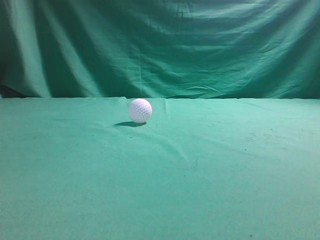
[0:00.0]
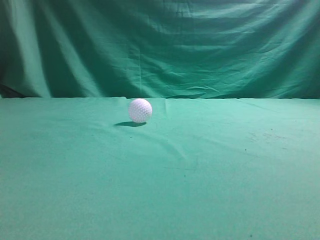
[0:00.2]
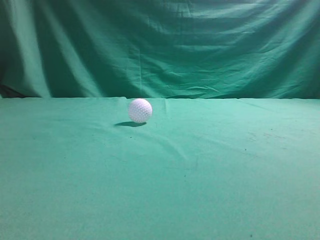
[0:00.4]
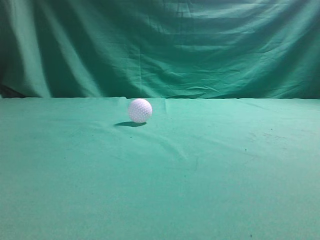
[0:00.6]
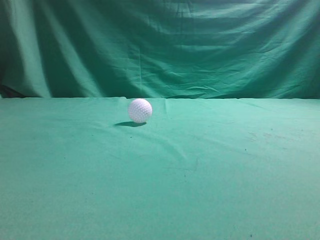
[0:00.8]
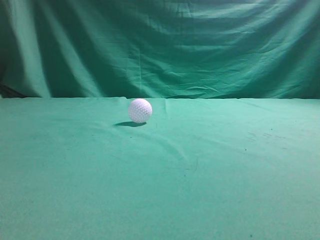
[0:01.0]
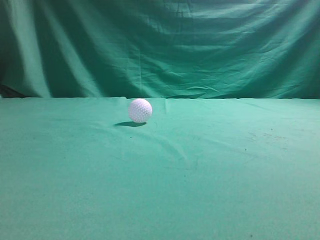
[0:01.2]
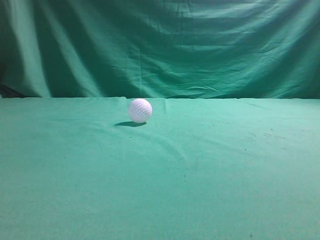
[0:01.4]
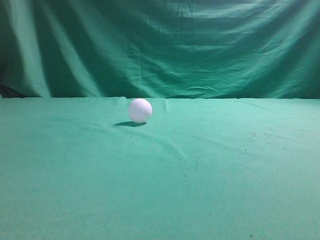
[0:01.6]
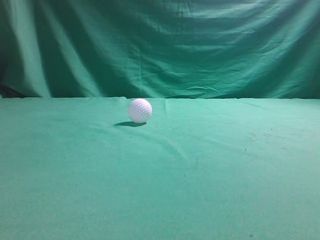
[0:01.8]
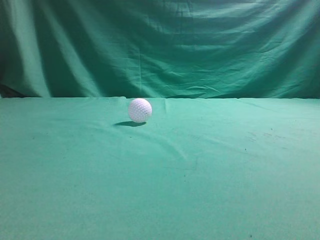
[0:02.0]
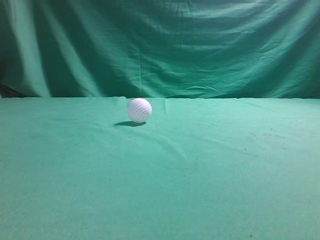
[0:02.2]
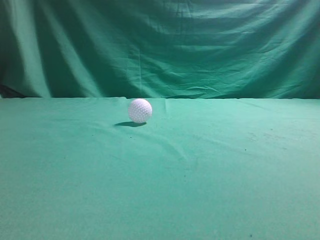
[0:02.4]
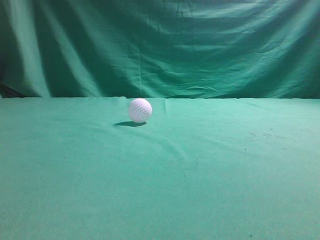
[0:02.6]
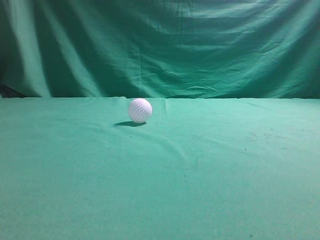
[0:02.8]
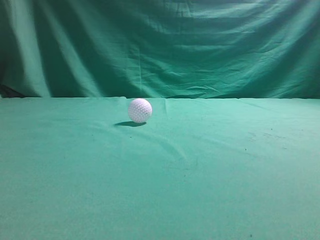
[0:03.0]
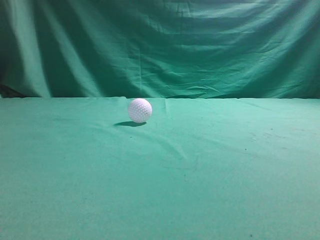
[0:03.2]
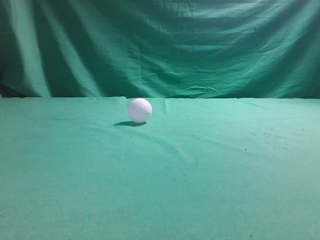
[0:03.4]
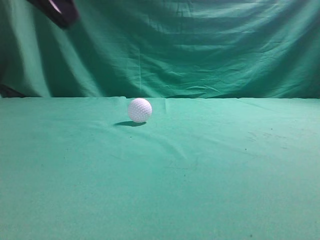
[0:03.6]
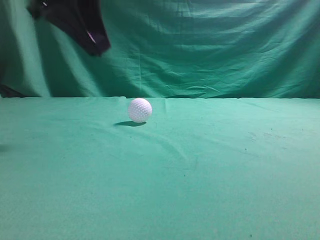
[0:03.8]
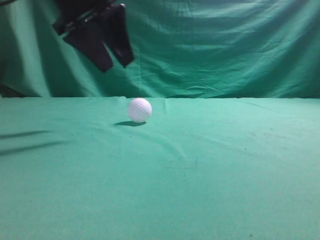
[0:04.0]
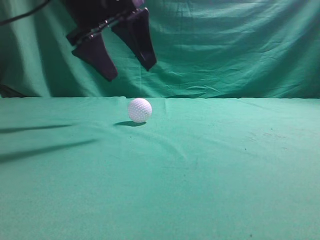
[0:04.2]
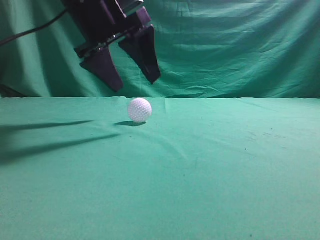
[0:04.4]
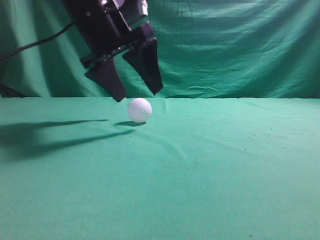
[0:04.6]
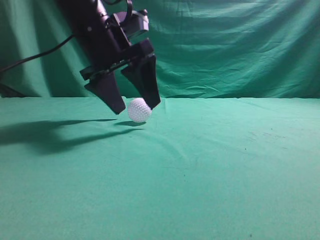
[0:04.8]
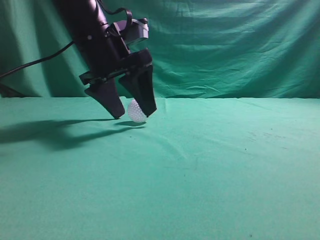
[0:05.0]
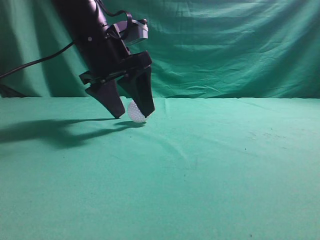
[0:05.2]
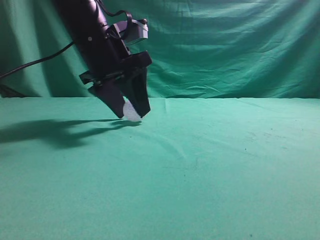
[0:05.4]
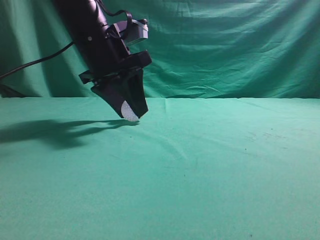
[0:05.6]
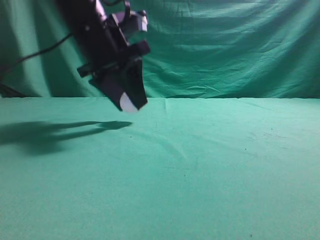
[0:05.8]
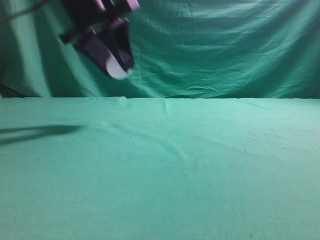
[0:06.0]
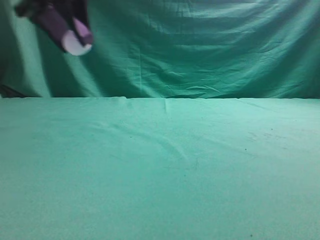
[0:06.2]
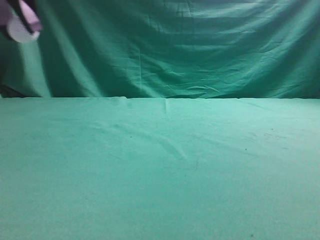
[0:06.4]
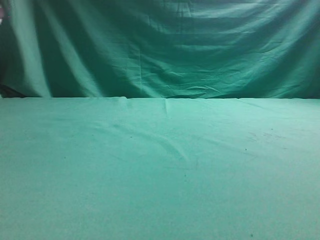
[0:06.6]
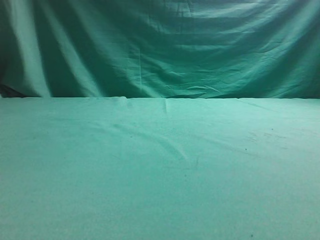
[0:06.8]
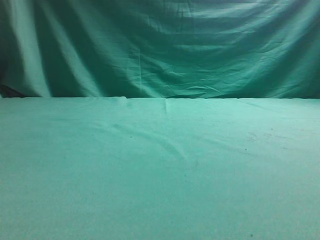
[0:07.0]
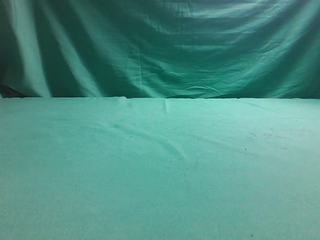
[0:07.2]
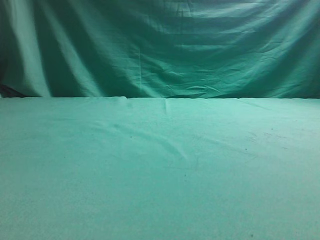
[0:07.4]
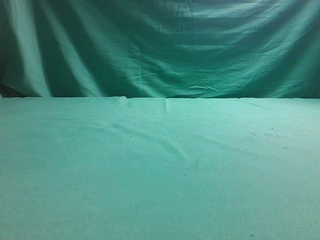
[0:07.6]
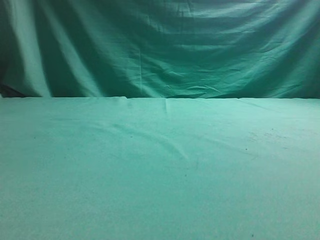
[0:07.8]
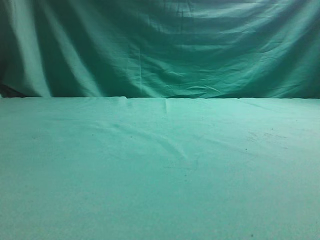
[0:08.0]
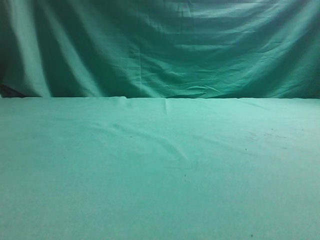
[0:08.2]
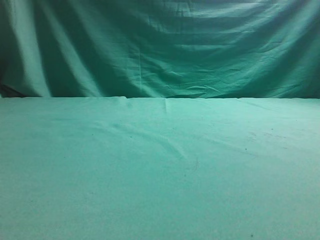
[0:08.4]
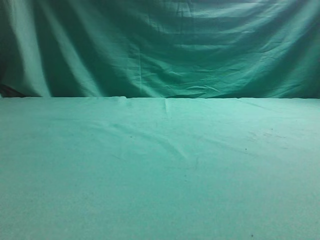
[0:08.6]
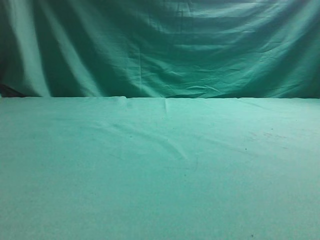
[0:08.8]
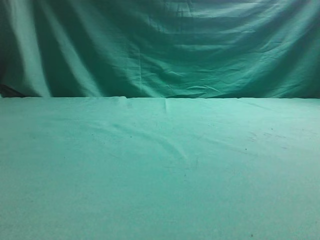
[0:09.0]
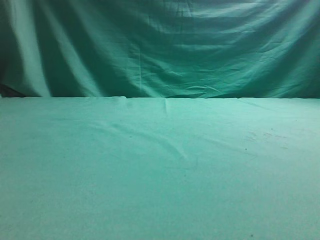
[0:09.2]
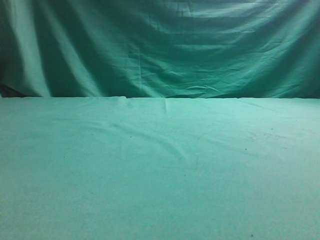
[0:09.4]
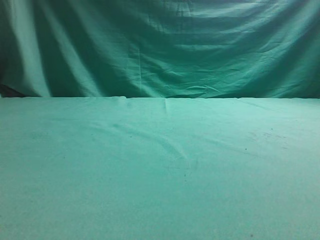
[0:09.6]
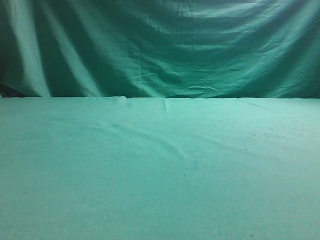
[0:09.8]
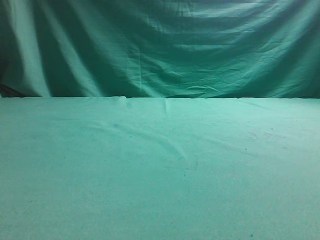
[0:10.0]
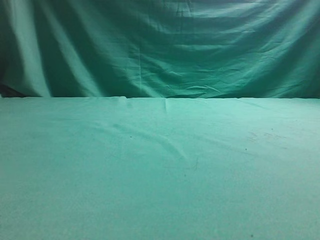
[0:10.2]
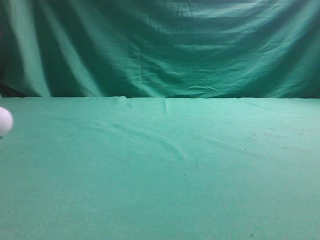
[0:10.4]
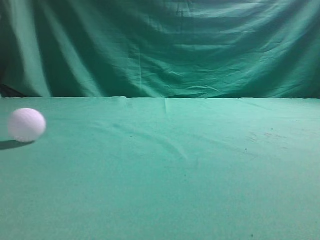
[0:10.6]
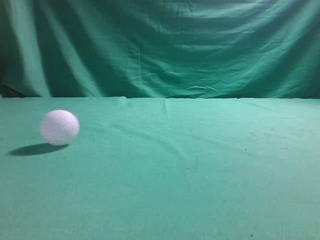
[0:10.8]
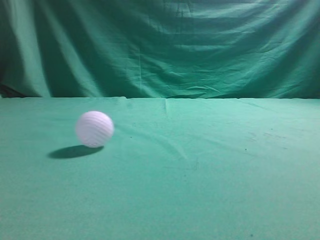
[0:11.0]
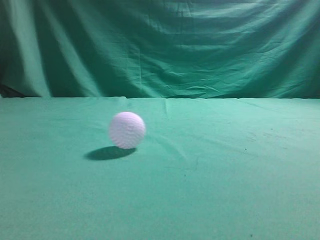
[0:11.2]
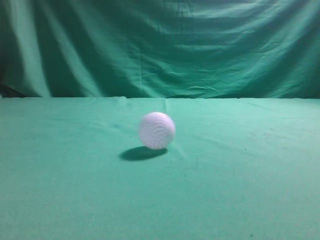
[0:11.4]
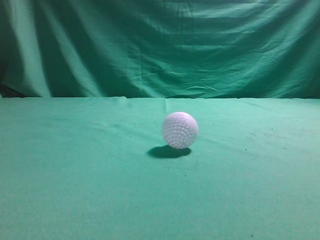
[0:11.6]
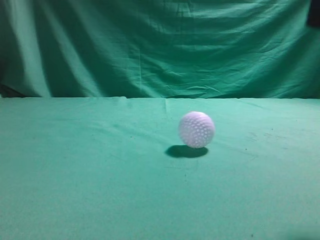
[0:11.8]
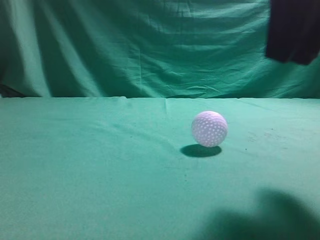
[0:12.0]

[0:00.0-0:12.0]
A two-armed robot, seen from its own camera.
Task of the whole recording: pick up the ball and place it on the plate, then pick up the ball from the plate and put it in the center of the table.
Step, 0:00.0 to 0:06.0: Grab the spherical object with your left arm.
Step, 0:06.2 to 0:09.2: Place the sphere on the white object.
0:03.0 to 0:04.4: The left gripper shifts approximately 30 cm forward and to the right, and opens.
0:04.4 to 0:06.0: The left gripper closes.
0:06.0 to 0:07.6: The left gripper heads to the left, covering some 20 cm.
0:10.4 to 0:12.0: The right gripper is displaced to the left by about 10 cm, and opens up. The left gripper goes roughly 25 cm backward, and closes its fingers.

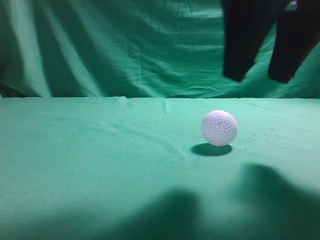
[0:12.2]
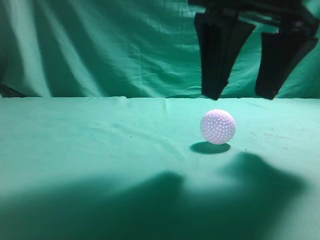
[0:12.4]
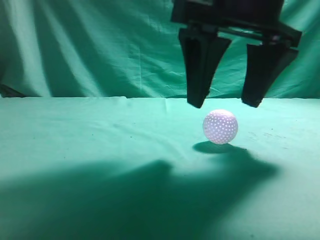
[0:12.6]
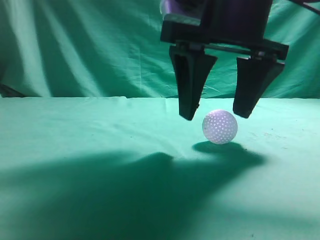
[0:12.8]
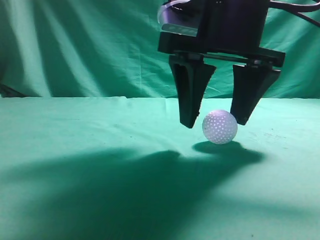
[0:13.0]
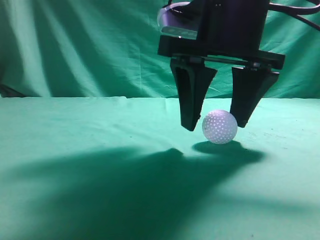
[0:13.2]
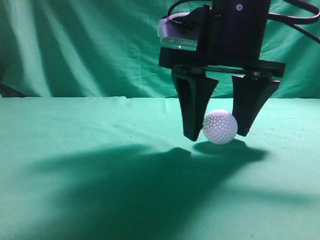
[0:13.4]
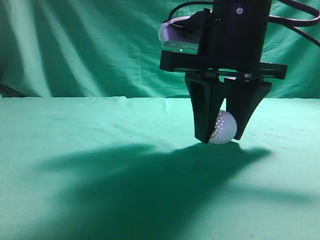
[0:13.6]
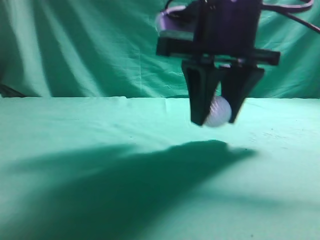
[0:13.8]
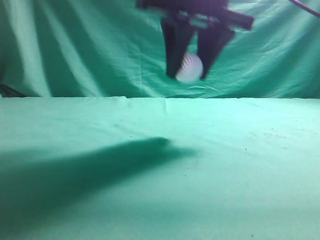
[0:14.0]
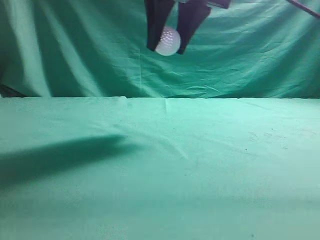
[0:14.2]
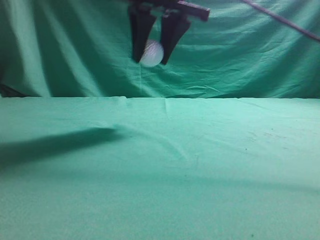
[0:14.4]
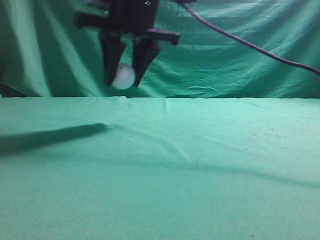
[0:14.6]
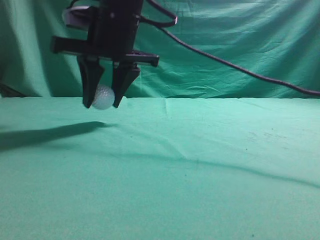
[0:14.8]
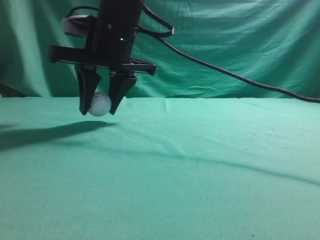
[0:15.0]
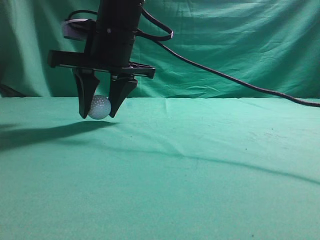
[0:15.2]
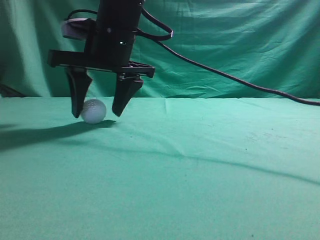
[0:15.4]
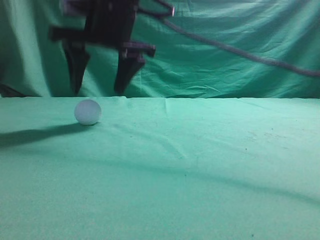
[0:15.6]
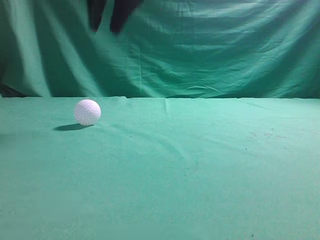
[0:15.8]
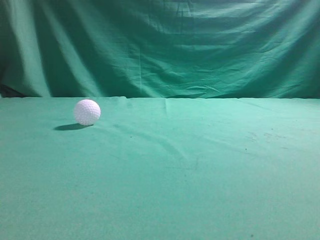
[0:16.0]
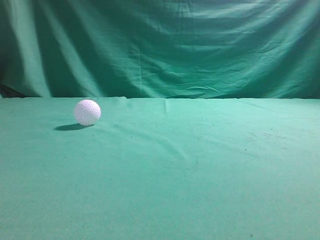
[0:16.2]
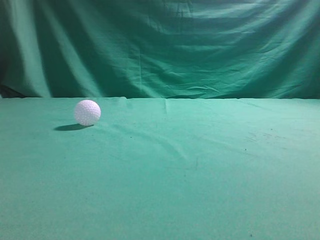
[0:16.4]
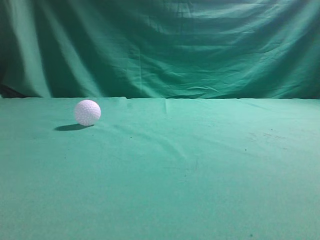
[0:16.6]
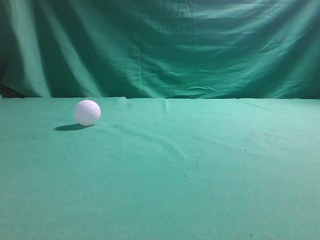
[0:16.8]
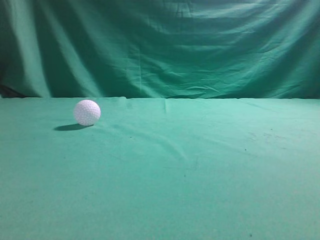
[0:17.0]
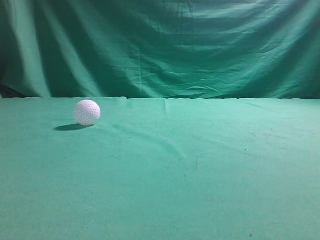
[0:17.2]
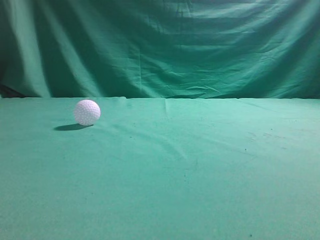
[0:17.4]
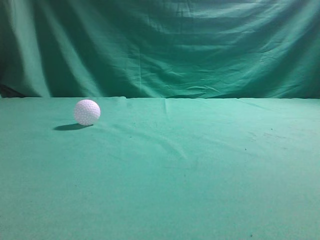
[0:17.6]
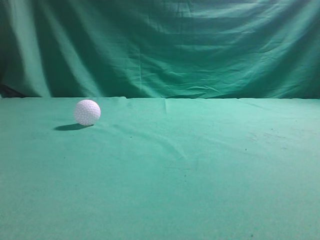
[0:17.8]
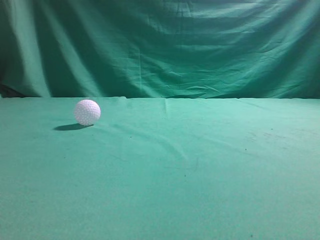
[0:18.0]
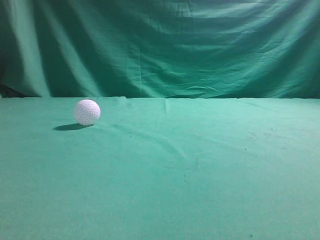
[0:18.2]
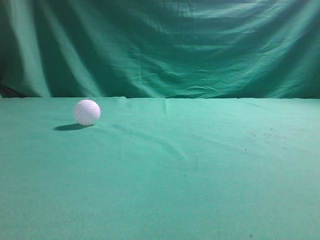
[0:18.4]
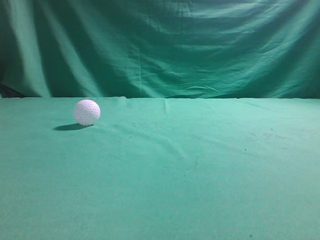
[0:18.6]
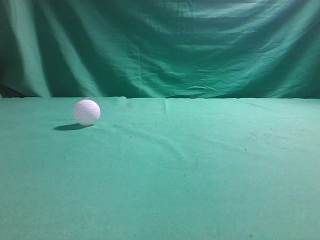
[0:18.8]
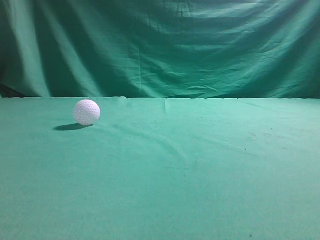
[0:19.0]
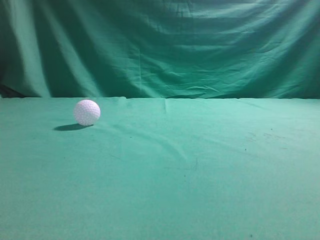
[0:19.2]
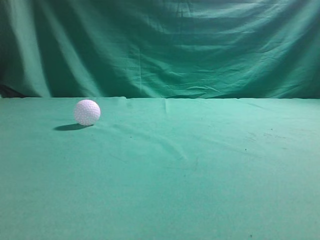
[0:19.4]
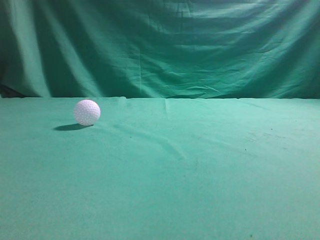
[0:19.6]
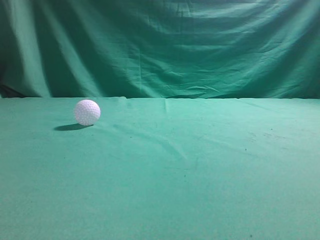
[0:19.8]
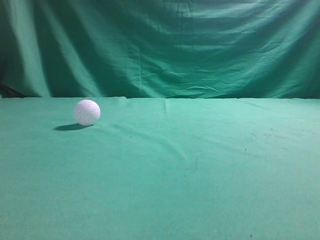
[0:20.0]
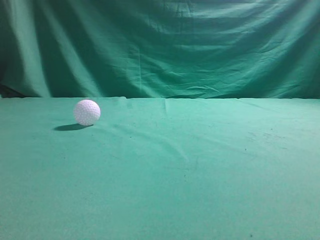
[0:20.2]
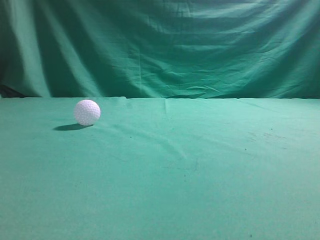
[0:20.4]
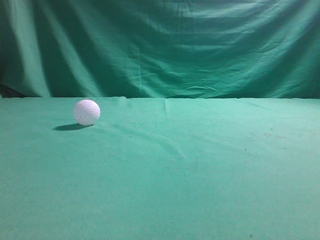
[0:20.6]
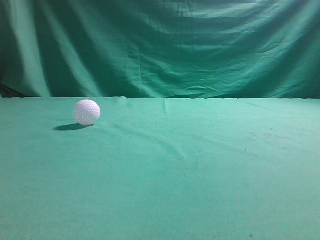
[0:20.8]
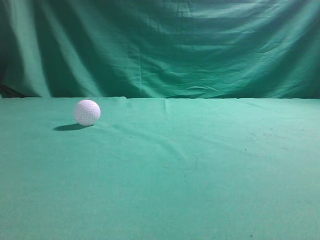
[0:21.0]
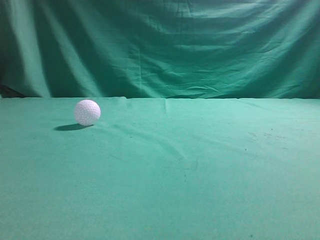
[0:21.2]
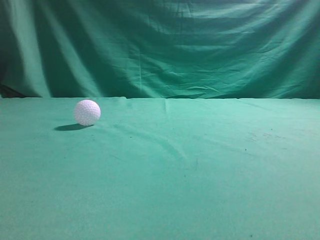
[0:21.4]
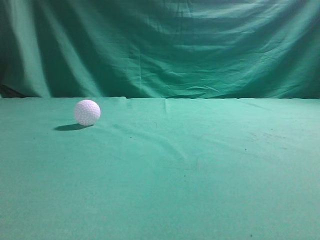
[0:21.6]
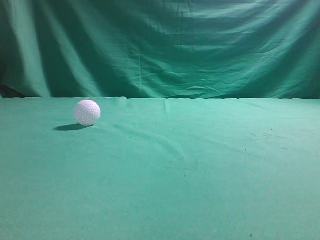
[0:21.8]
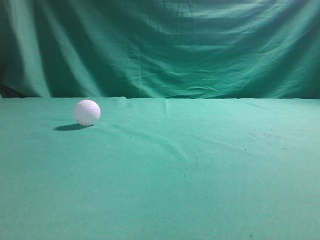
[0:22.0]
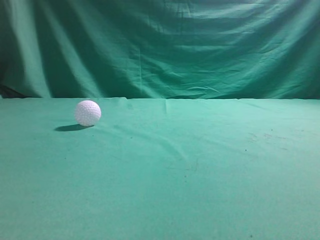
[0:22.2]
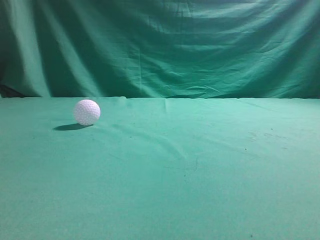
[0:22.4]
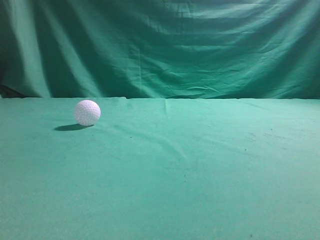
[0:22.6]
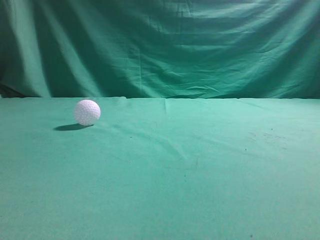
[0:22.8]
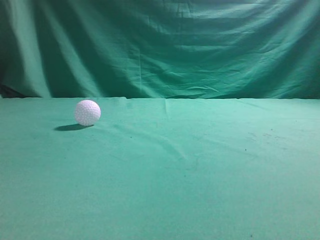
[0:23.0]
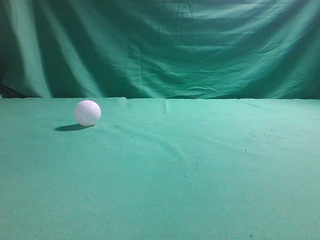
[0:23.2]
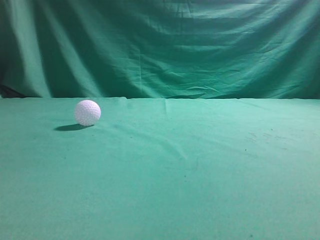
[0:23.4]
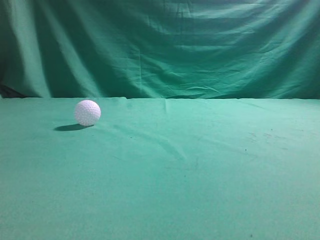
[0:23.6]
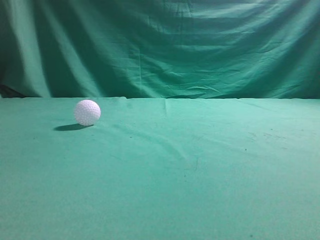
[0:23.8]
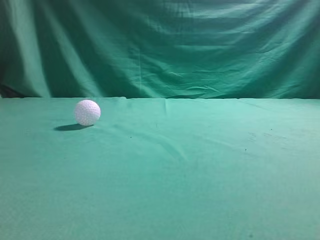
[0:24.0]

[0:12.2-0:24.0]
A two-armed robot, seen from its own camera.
Task of the whole recording: pick up the ball and place it on the plate, then pick up the ball from the plate and put it in the center of the table.
Step, 0:14.0 to 0:15.6: Put the picked-up object on the table.
0:12.2 to 0:13.6: The right gripper heads downward and forward, covering some 10 cm, and closes up.
0:13.6 to 0:15.2: The right gripper travels to the left and forward by some 15 cm.
0:15.2 to 0:16.6: The right gripper goes approximately 40 cm upward, to the right and backward, and closes its fingers.
